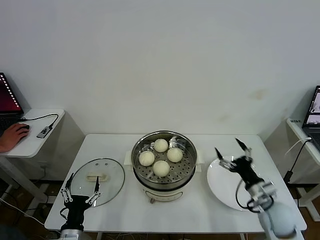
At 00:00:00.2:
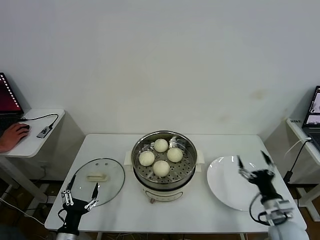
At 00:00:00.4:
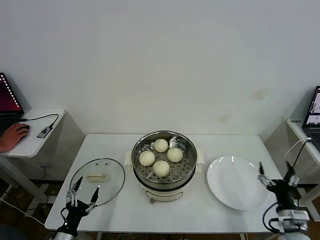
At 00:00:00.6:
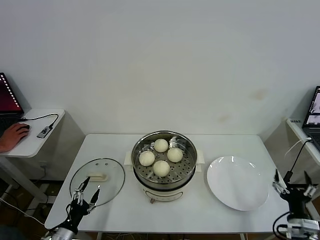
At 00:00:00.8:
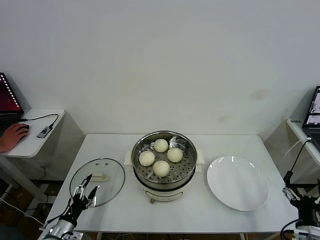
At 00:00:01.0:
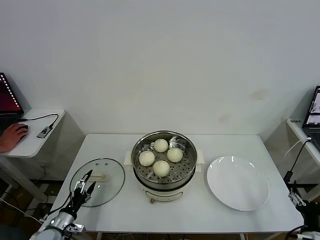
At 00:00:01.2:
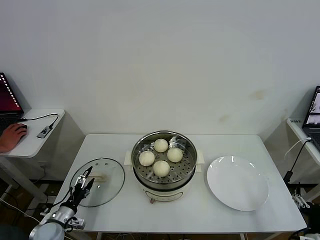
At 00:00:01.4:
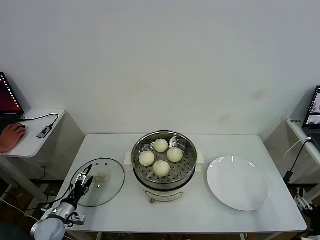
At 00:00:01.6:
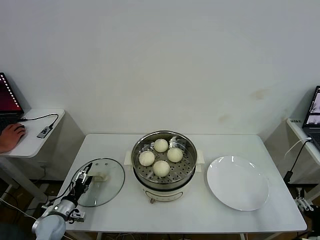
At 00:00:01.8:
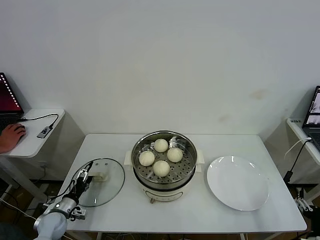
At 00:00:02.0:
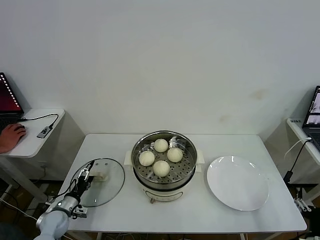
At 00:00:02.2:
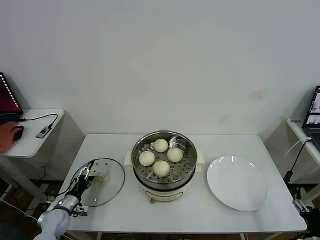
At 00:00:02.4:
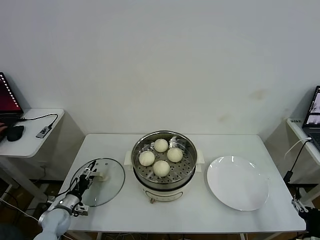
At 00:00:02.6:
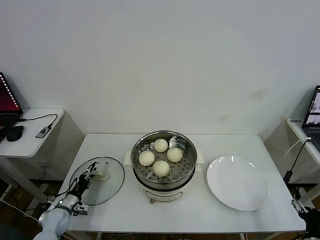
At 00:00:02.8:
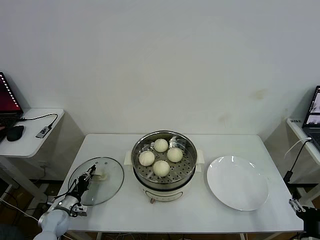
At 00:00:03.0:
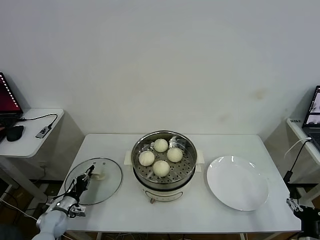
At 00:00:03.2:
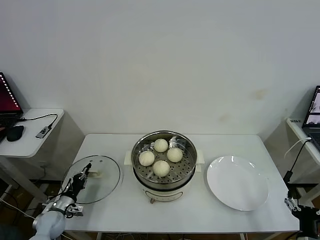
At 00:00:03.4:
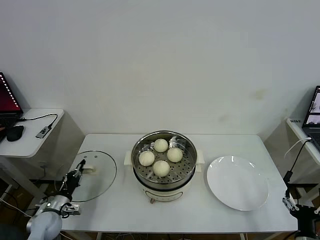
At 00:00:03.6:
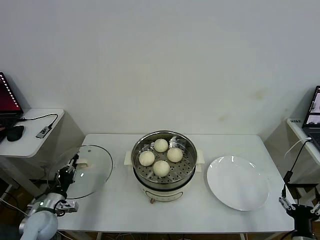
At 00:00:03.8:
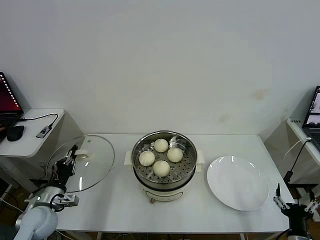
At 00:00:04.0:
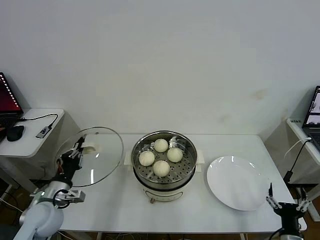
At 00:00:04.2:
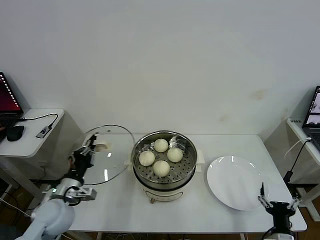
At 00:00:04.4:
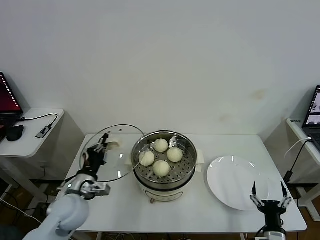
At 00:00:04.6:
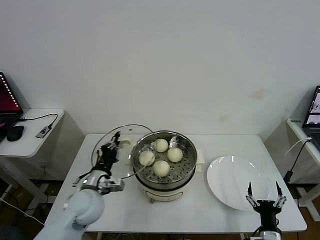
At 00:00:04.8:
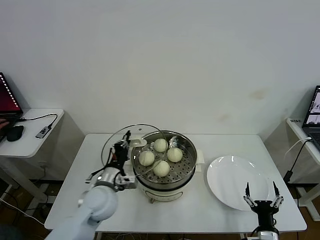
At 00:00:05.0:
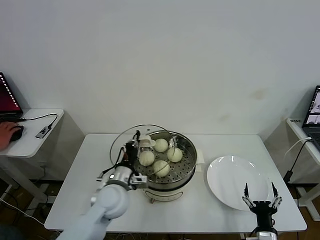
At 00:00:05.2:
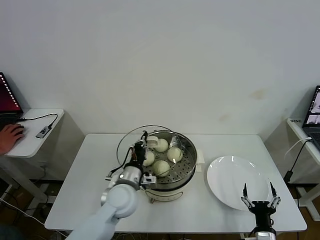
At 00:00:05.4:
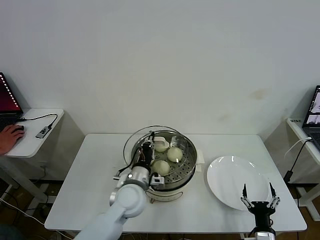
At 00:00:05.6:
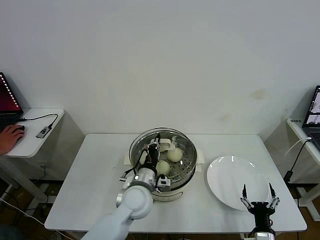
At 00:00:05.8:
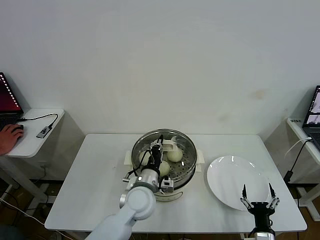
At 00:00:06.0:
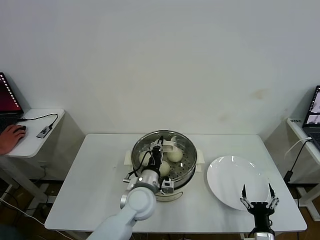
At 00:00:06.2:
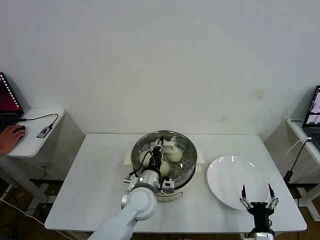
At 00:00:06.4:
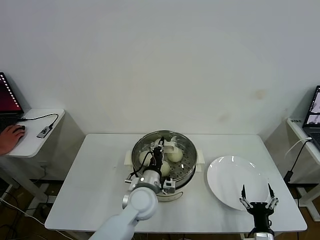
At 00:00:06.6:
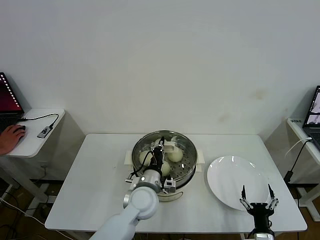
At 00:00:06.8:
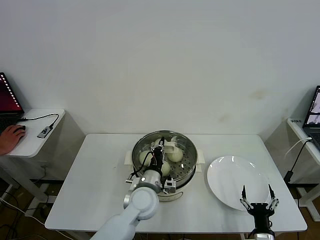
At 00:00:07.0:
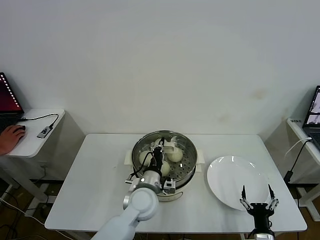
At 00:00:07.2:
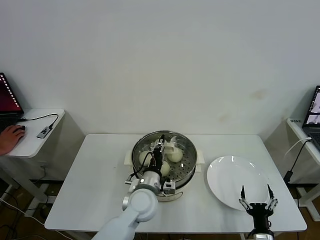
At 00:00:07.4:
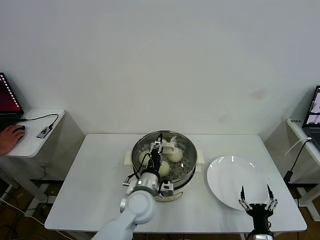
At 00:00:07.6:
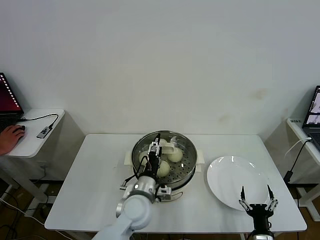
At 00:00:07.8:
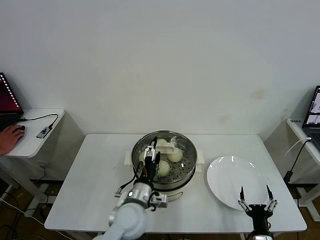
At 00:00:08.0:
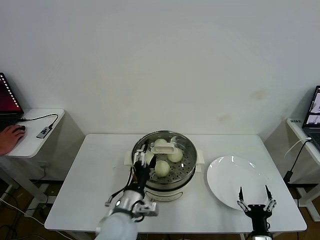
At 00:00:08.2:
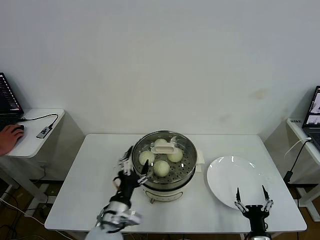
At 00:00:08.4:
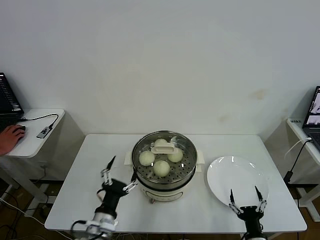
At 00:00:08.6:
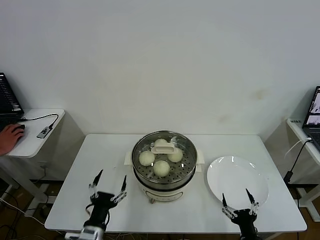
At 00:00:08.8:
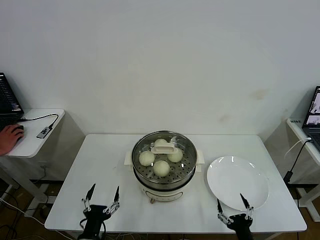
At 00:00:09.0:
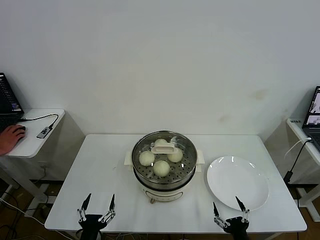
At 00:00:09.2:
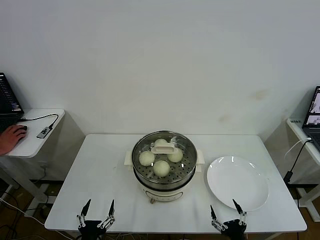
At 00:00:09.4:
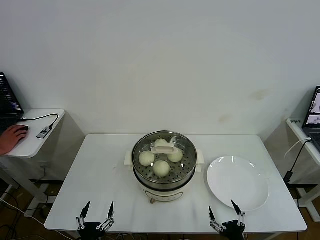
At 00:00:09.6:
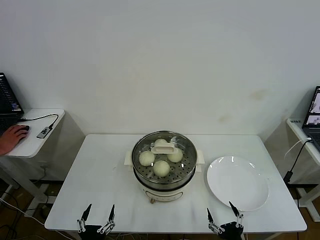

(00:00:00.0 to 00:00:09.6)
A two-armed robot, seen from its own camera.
Task of the whole recording: take steamed baozi put them in steamer then cover it.
Step, 00:00:00.0 - 00:00:03.0: Grasp the pot lid with left gripper.
Step, 00:00:03.2 - 00:00:07.4: Place the pot lid on the steamer with left gripper.
00:00:00.0 - 00:00:01.6: The right gripper heads backward and to the right, covering some 20 cm. Meanwhile the left gripper goes approximately 20 cm to the left, forward and downward.
00:00:01.6 - 00:00:03.2: The left gripper closes its fingers.
00:00:03.2 - 00:00:04.8: The right gripper shifts about 10 cm to the left; the left gripper goes approximately 30 cm to the right and upward.
00:00:04.8 - 00:00:06.4: The left gripper goes some 15 cm to the right.
00:00:06.4 - 00:00:08.0: The left gripper goes approximately 5 cm backward, and opens up.
00:00:08.0 - 00:00:09.6: The left gripper is displaced backward, to the left and downward by about 25 cm. The right gripper heads backward, covering roughly 5 cm.
